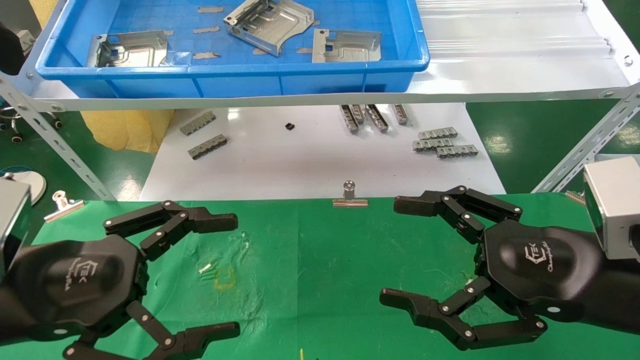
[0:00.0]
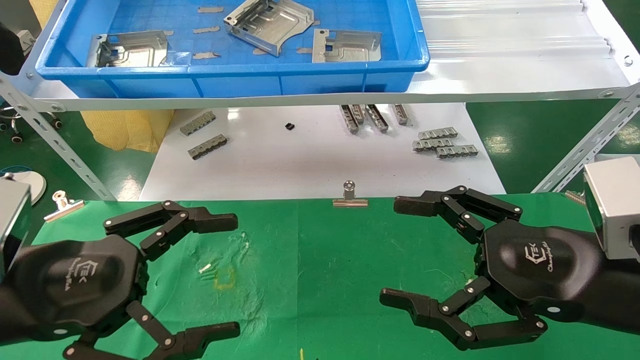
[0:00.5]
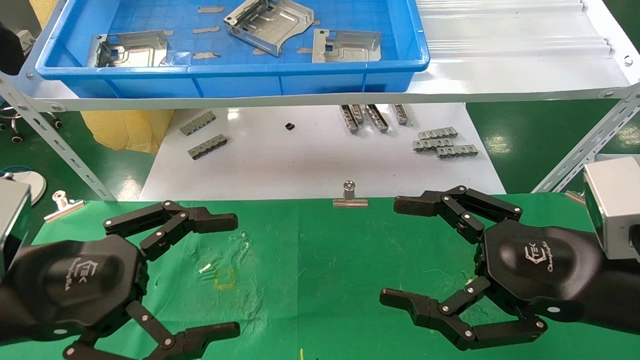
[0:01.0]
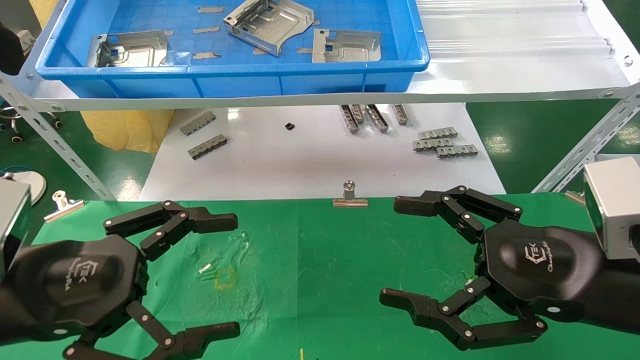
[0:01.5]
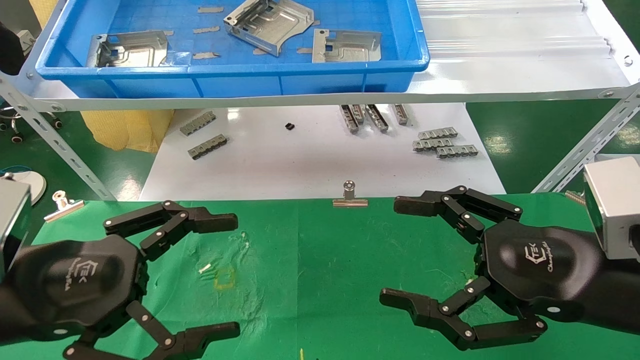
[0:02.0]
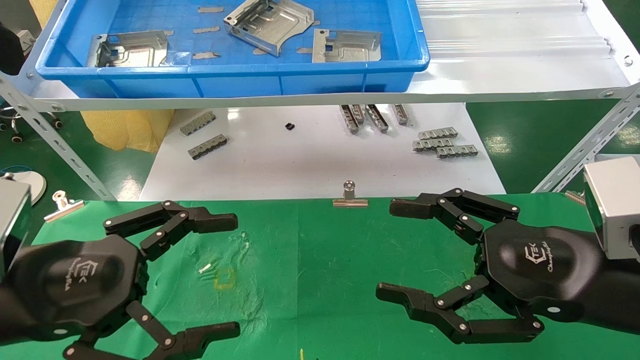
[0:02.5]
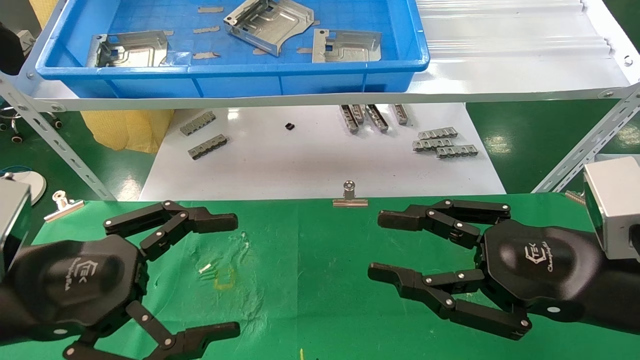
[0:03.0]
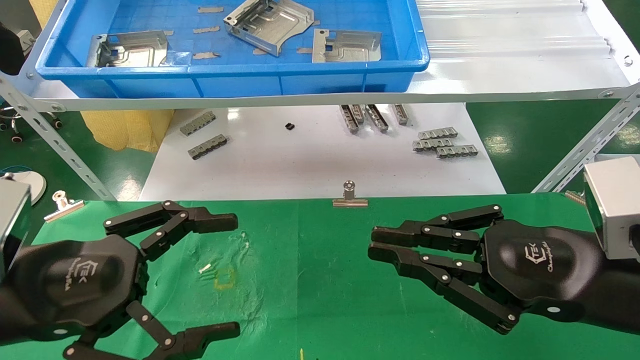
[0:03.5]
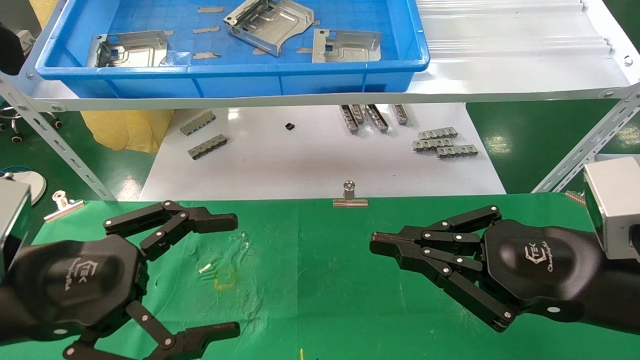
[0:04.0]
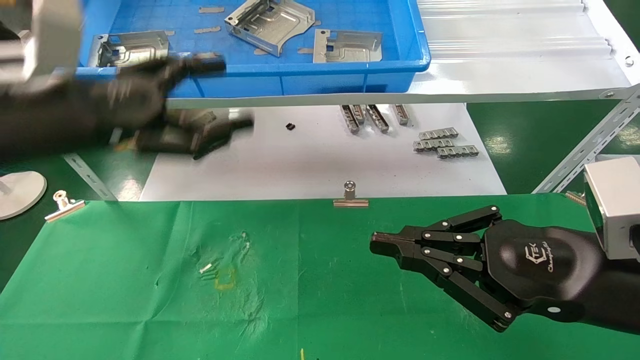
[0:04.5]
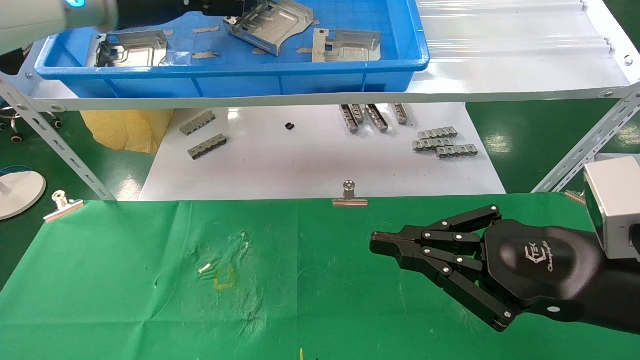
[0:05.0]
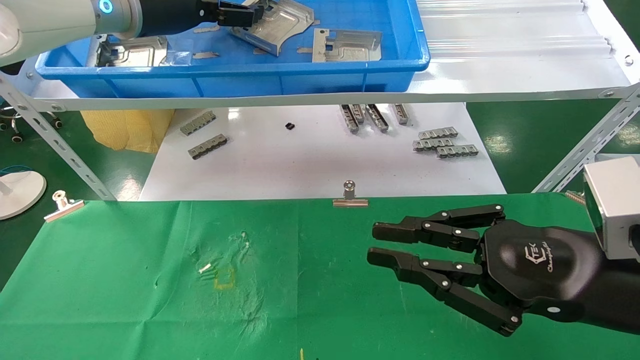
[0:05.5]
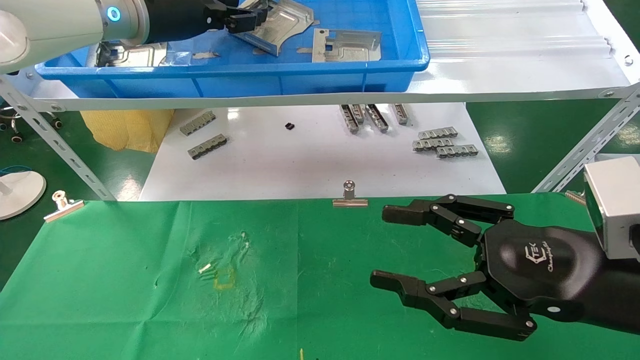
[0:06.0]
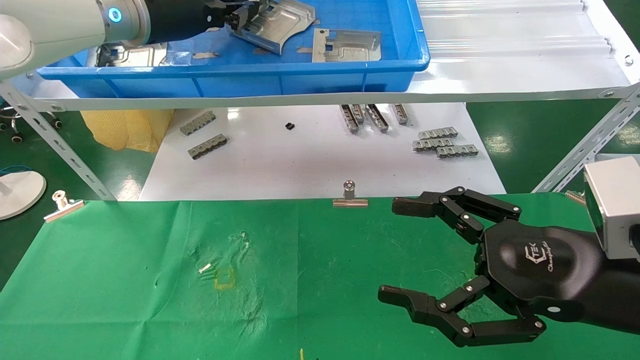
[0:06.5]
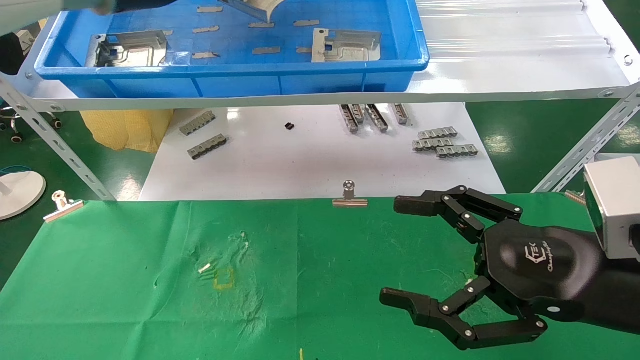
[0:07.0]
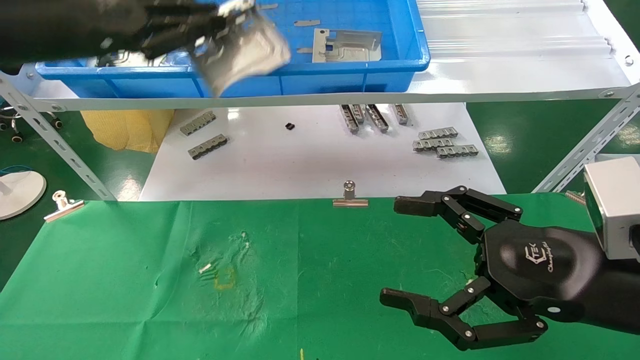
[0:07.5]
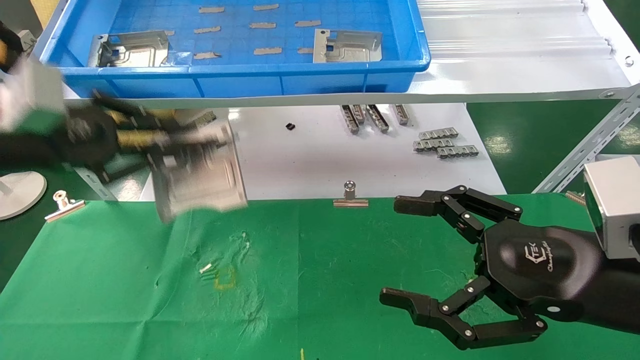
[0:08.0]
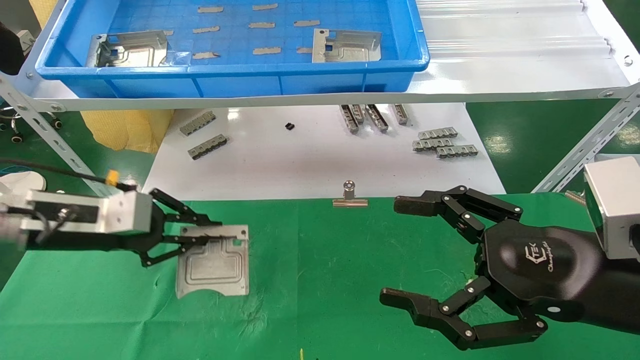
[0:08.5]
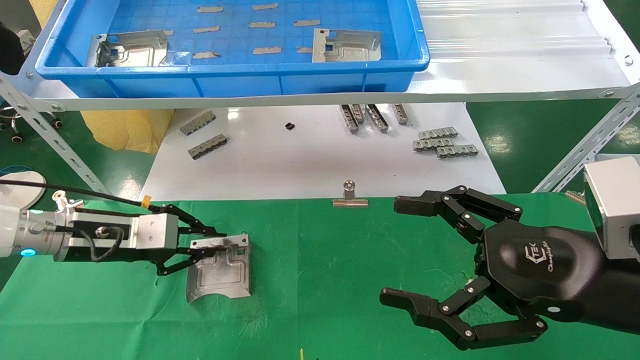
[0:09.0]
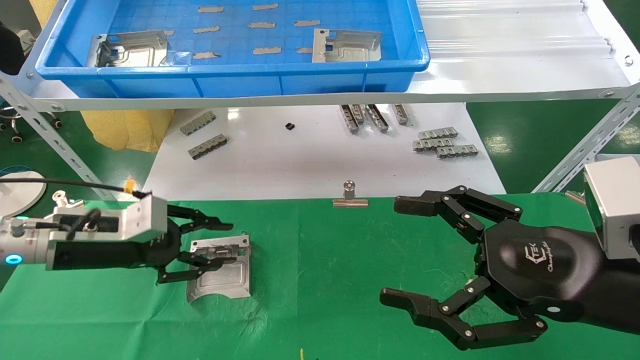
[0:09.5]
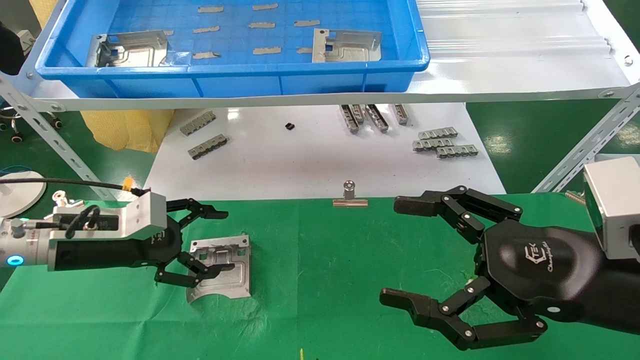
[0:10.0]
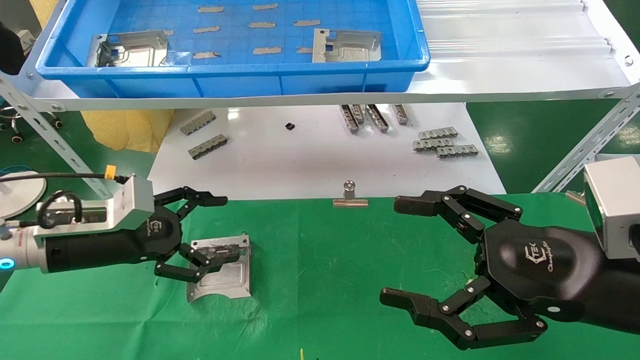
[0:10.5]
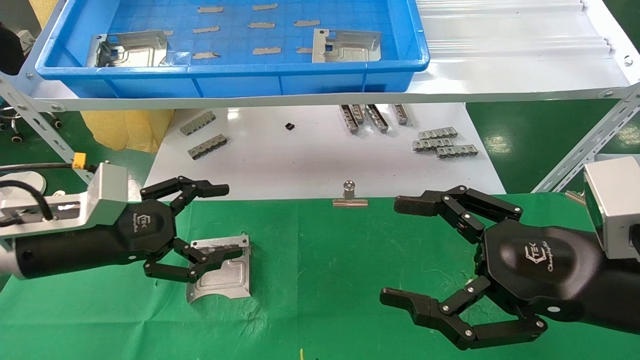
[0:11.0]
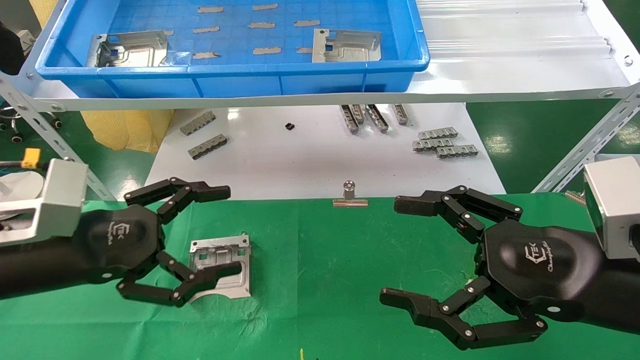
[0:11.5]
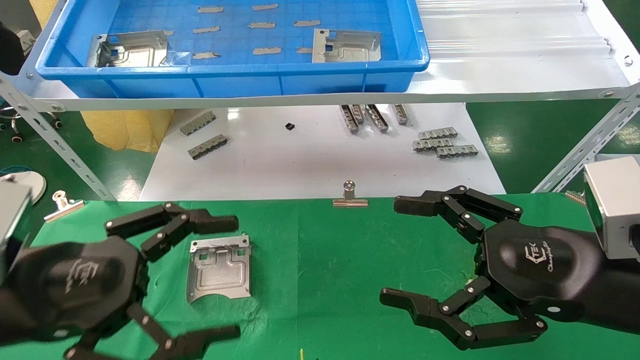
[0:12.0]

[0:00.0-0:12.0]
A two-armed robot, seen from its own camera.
Task of the whole recording: use the mechanical arm to pick up the parts and place them on the table.
Step, 0:04.5 to 0:06.0: Pick up the hard drive bracket from the feeding area.
Step, 0:06.5 to 0:09.5: Place the hard drive bracket into the box.
0:00.0 to 0:02.0: Both grippers stay about where they are.
0:02.0 to 0:04.0: The right gripper closes up.
0:04.0 to 0:06.0: The left gripper shifts roughly 30 cm forward and upward, and closes its fingers; the right gripper opens its fingers.
0:06.0 to 0:08.0: The right gripper opens its fingers, while the left gripper travels downward, to the left and backward by approximately 20 cm, and closes.
0:08.0 to 0:10.0: The left gripper travels downward by roughly 15 cm, and opens up.
0:10.0 to 0:12.0: The left gripper is displaced backward by about 15 cm.
